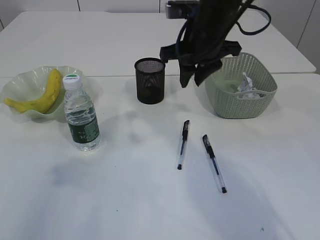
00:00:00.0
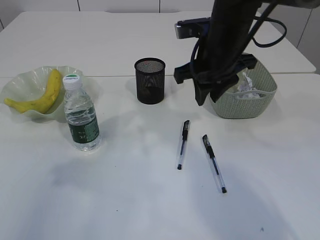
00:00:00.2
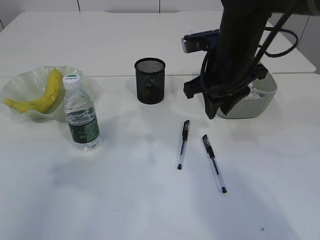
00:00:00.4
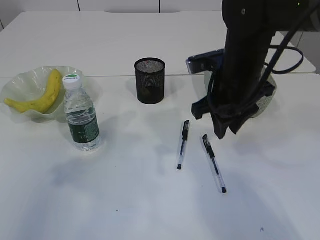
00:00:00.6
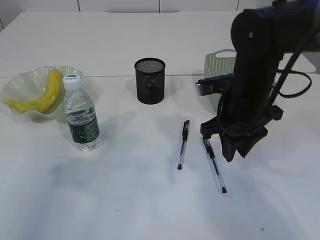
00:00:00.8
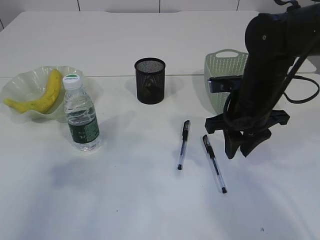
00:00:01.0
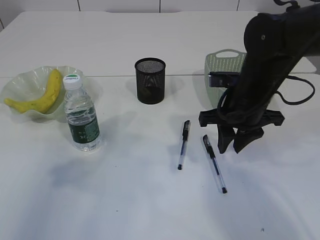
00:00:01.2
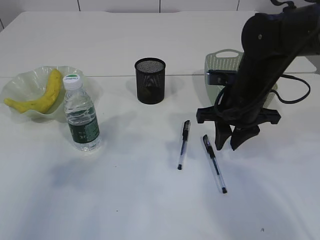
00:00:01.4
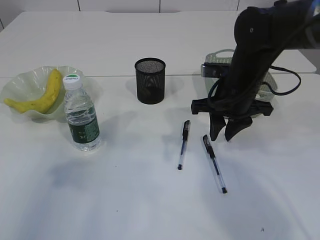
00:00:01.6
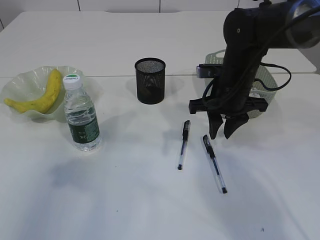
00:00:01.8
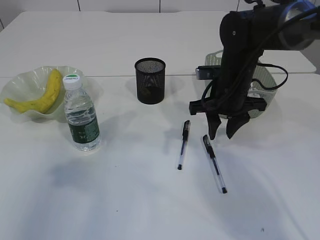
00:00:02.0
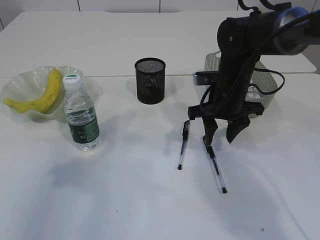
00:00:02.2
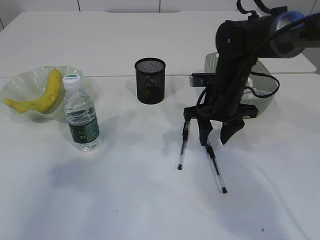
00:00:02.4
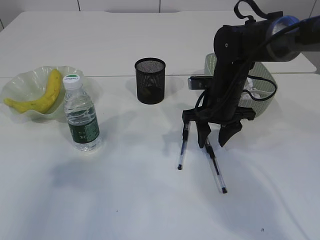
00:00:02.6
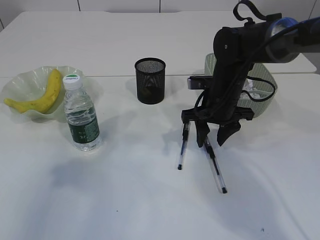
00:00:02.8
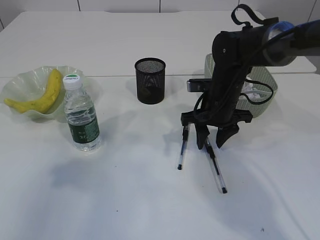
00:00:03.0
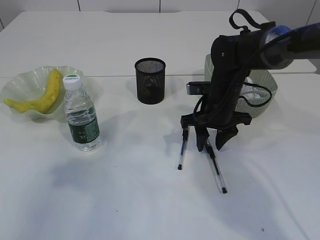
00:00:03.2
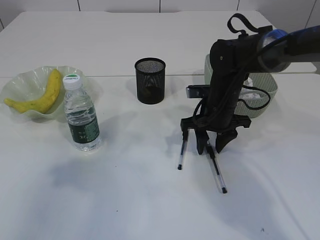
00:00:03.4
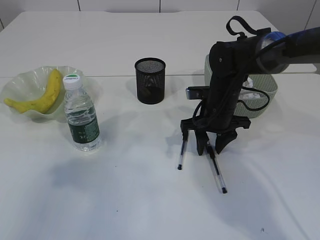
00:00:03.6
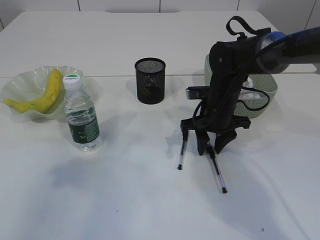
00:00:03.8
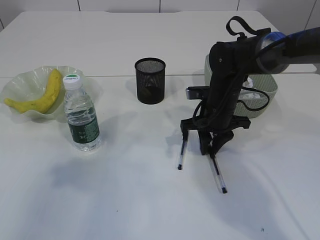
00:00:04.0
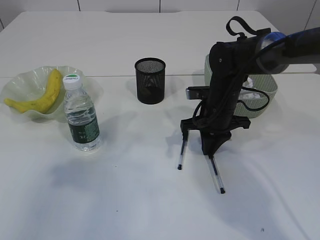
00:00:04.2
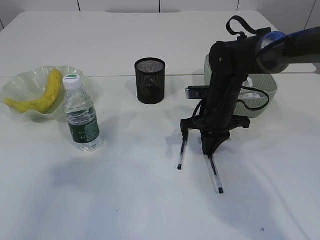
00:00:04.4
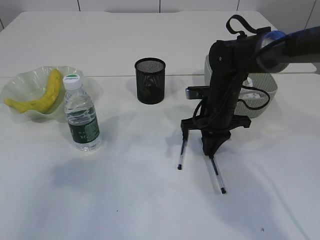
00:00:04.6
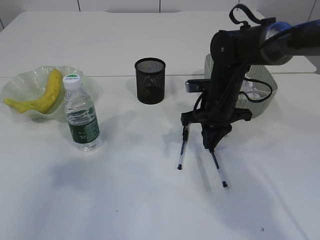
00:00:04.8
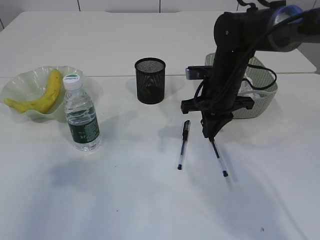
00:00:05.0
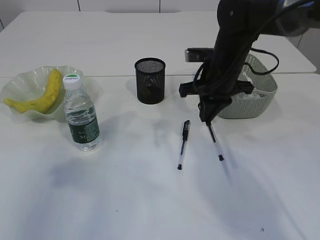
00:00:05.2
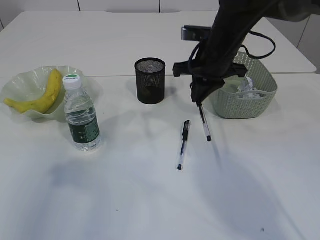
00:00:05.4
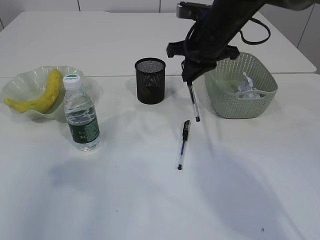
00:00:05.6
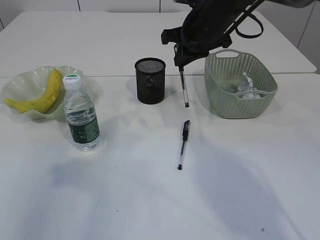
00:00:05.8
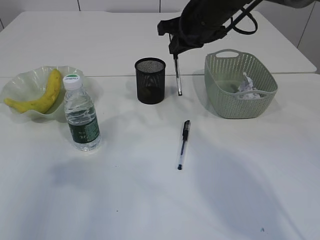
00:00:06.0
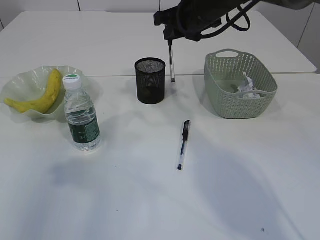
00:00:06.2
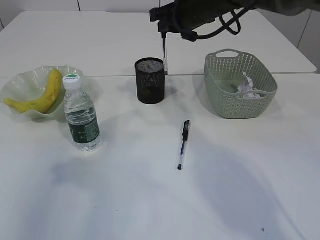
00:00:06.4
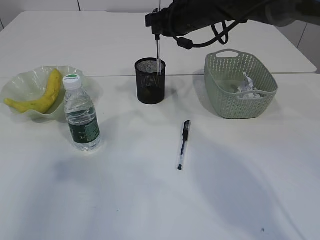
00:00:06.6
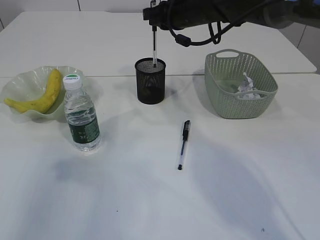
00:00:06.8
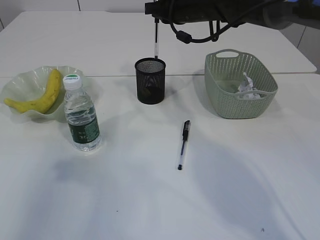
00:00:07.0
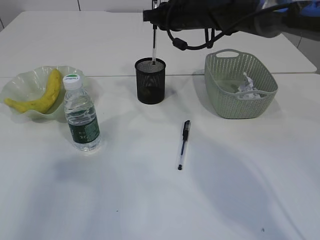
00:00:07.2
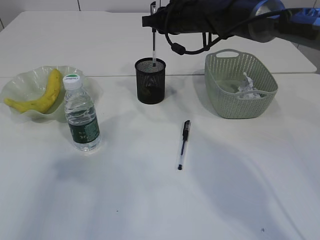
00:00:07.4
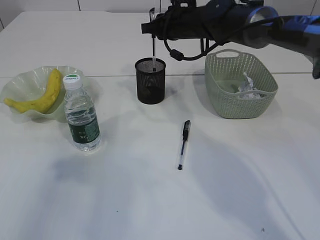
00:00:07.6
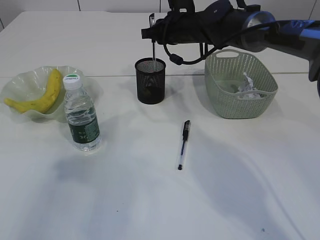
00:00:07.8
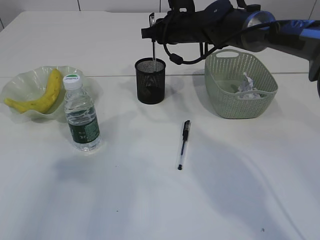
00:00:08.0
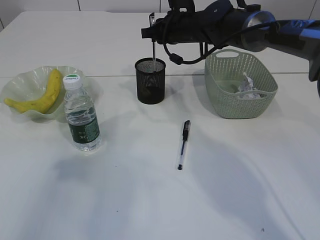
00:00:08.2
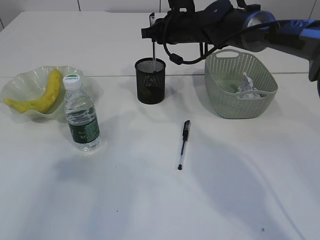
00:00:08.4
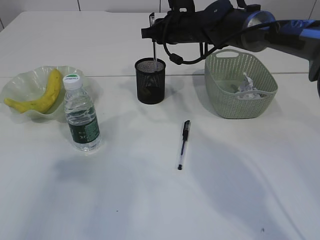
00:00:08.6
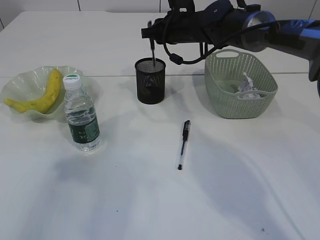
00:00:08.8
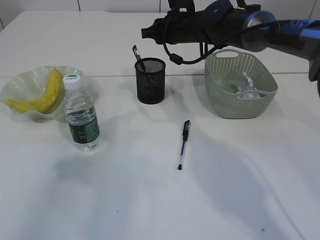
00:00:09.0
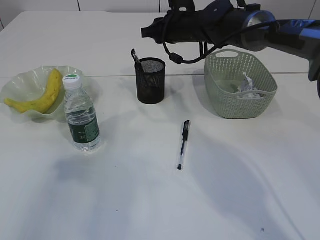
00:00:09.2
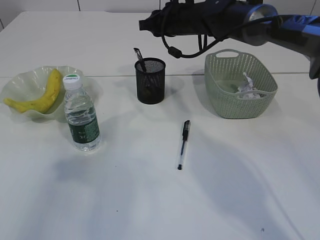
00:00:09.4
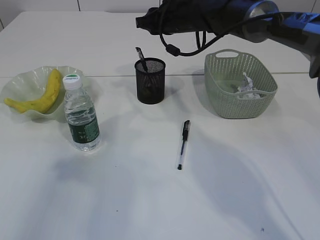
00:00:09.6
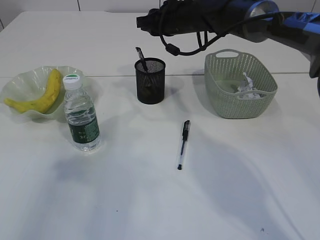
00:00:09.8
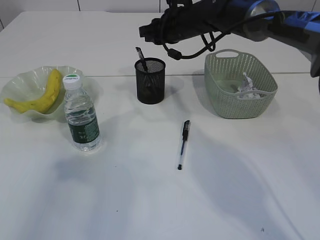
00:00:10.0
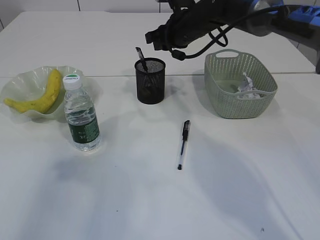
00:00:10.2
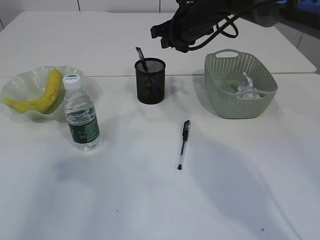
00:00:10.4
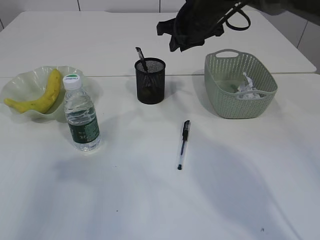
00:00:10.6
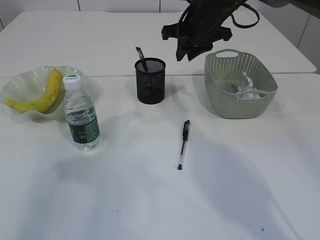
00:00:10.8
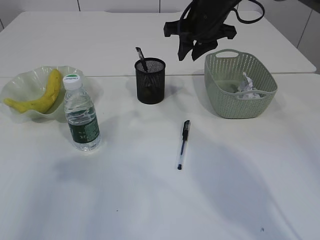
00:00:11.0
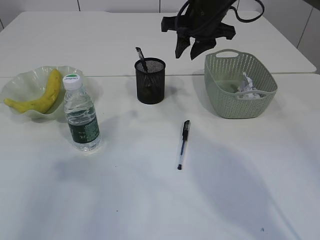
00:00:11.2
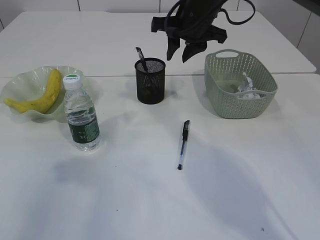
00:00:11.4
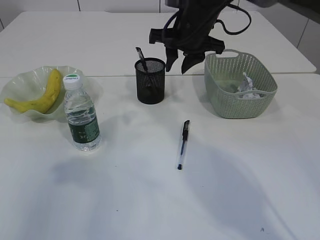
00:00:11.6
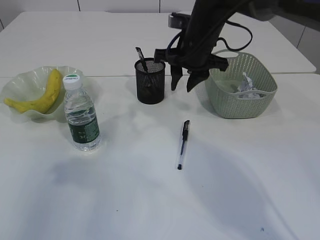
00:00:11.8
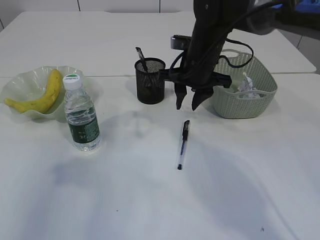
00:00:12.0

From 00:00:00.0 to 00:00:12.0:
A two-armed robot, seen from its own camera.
Step, from 00:00:00.0 to 00:00:04.8: Pick up the pen with right arm.
Step, from 00:00:05.0 to 00:00:09.0: Place the pen into the pen holder.
From 00:00:00.0 to 00:00:01.6: The right gripper is displaced downward by roughly 10 cm.
From 00:00:01.6 to 00:00:03.0: The right gripper moves roughly 5 cm.
From 00:00:03.0 to 00:00:04.4: The right gripper closes up.
From 00:00:04.4 to 00:00:06.0: The right gripper shifts some 15 cm upward.
From 00:00:06.0 to 00:00:07.6: The right gripper goes roughly 5 cm forward.
From 00:00:07.6 to 00:00:09.0: Neither gripper changes place.
From 00:00:10.4 to 00:00:12.0: The right gripper heads backward, covering approximately 5 cm.

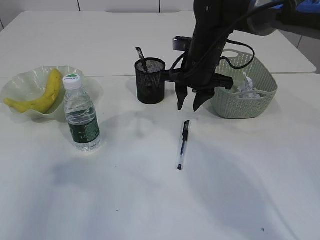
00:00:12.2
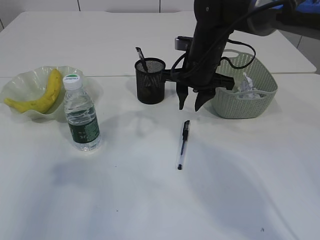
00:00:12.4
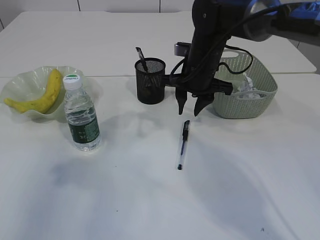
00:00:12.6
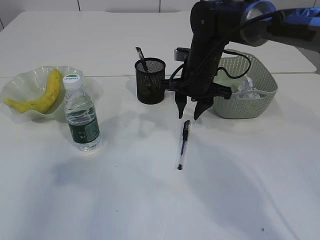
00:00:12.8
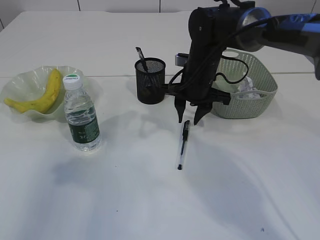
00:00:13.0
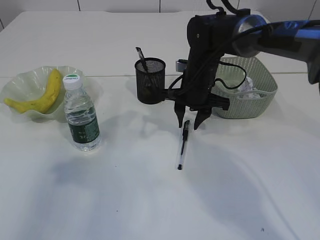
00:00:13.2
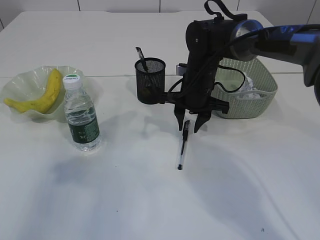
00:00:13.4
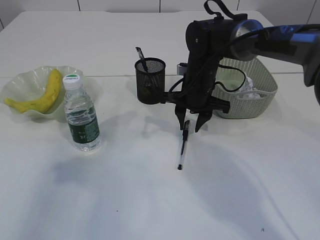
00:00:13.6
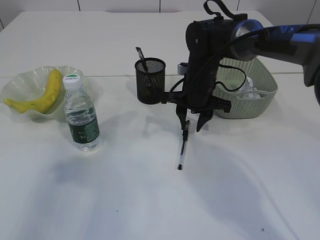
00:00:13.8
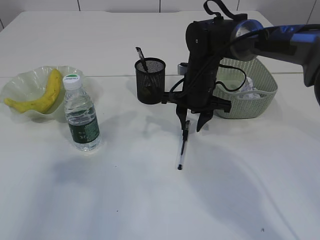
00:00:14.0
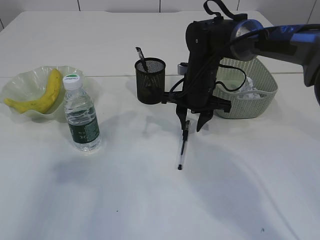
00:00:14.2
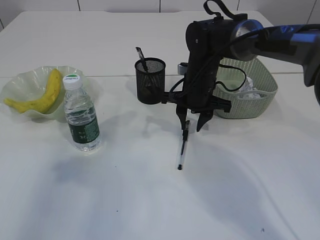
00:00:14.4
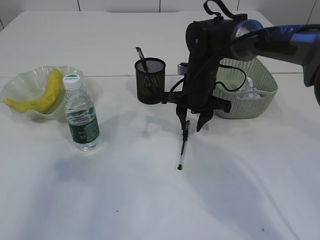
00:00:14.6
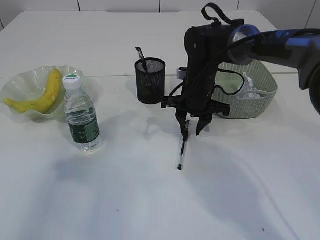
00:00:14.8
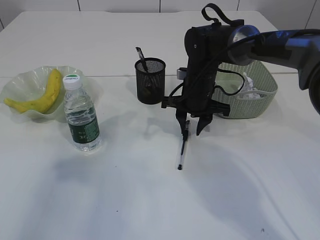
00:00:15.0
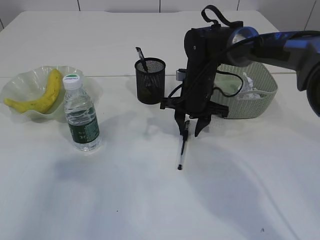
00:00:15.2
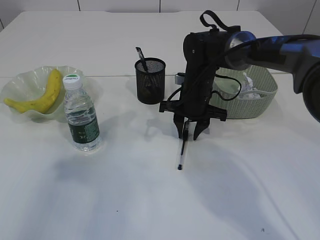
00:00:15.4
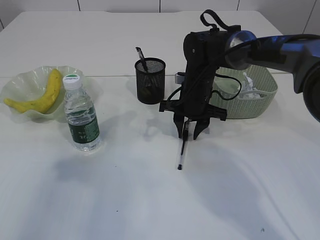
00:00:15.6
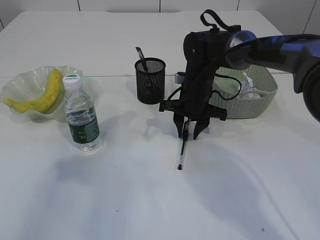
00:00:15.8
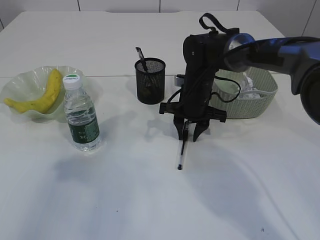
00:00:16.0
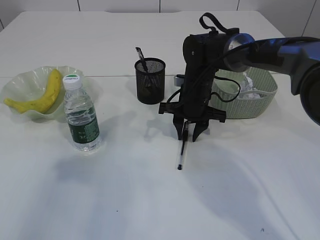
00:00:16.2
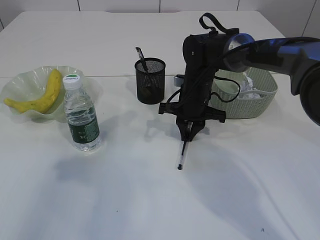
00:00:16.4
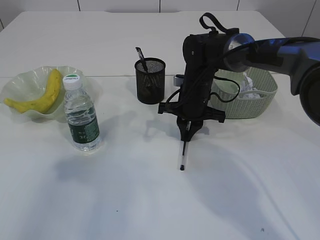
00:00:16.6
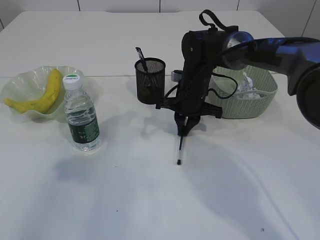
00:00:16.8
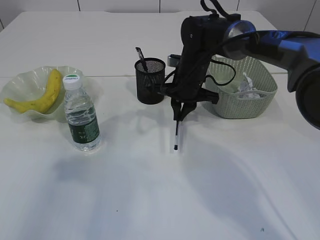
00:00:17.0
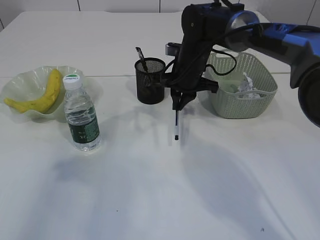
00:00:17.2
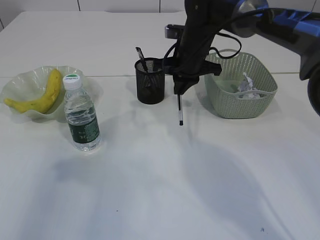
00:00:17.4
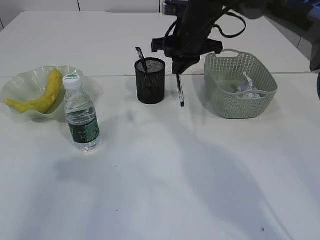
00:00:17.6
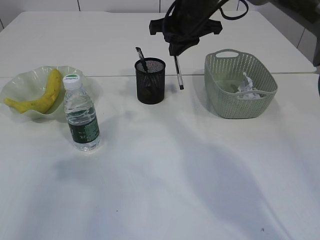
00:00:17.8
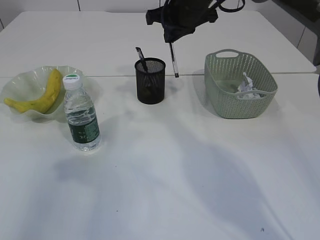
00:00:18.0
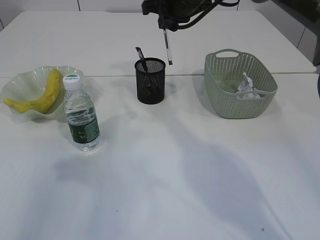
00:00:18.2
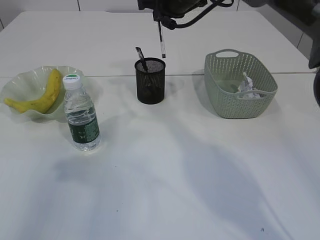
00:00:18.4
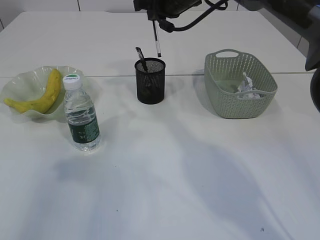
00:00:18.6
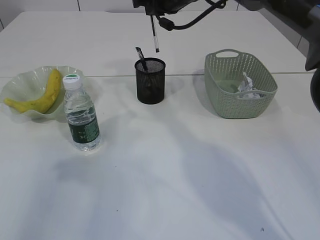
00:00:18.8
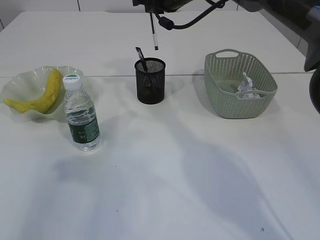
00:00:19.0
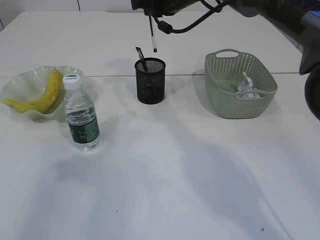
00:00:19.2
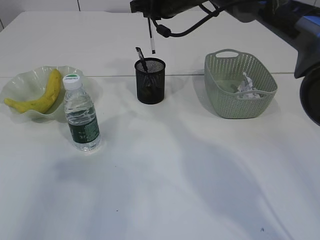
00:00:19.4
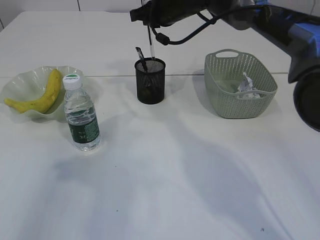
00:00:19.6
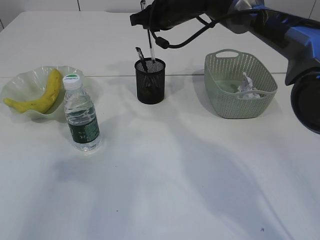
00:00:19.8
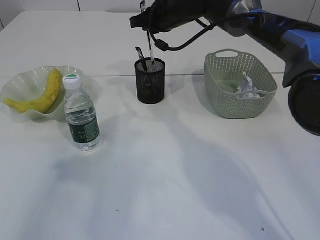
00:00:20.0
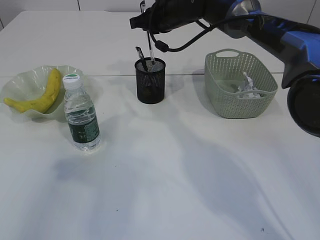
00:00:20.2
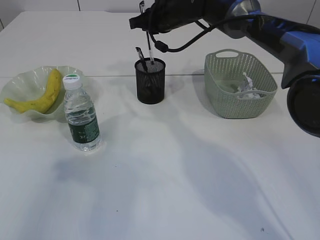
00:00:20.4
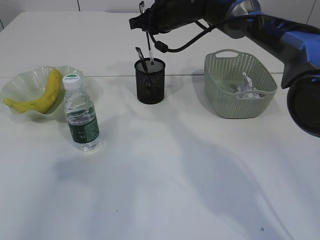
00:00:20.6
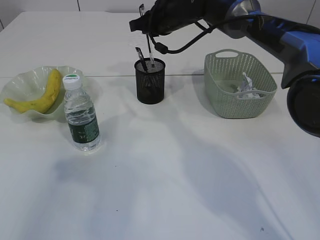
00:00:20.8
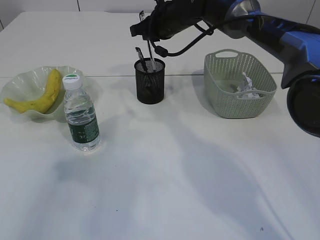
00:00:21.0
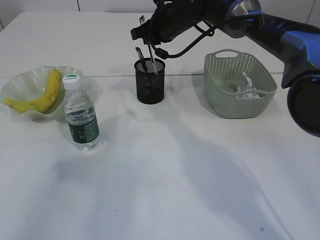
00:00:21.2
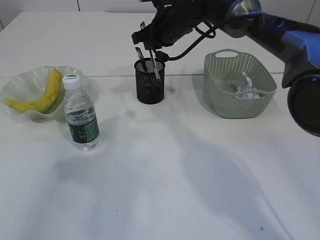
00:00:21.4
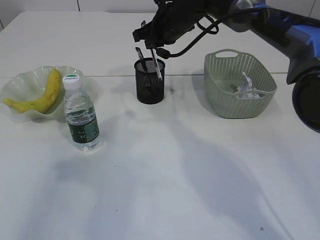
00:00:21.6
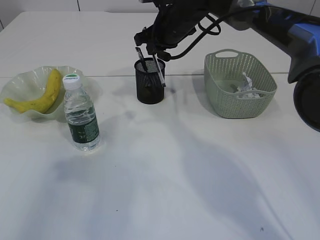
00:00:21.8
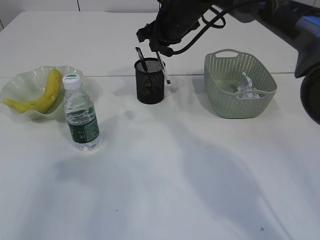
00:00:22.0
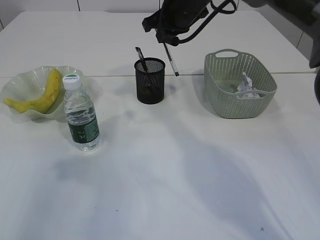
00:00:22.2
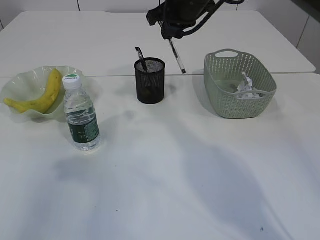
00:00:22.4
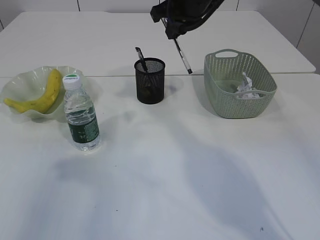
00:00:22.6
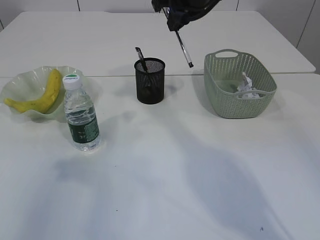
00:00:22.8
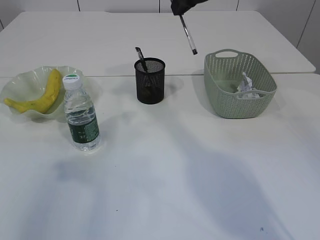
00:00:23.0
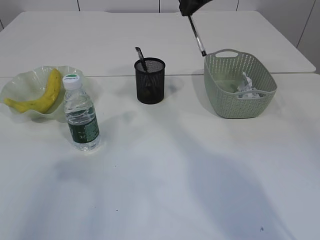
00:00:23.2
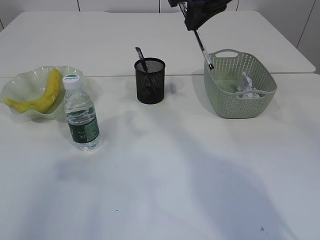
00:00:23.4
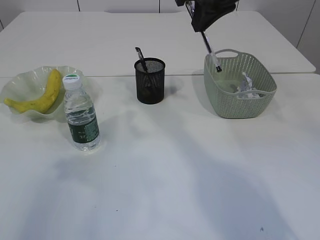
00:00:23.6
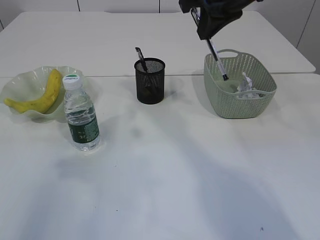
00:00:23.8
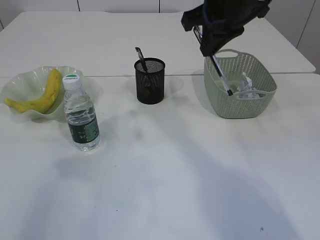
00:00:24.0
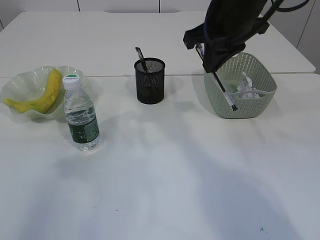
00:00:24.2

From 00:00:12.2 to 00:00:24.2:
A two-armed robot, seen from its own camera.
Step, from 00:00:12.2 to 00:00:16.8: Pick up the pen with right arm.
From 00:00:12.2 to 00:00:13.8: The right gripper shifts about 5 cm downward.
From 00:00:13.8 to 00:00:15.2: The grippers move only a little.
From 00:00:15.2 to 00:00:16.6: The right gripper closes up.
From 00:00:16.6 to 00:00:18.2: The right gripper travels upward by approximately 20 cm.
From 00:00:18.2 to 00:00:19.8: The right gripper ends up approximately 5 cm from where it was.
From 00:00:19.8 to 00:00:21.2: The grippers make only small movements.
From 00:00:21.2 to 00:00:22.6: The right gripper heads upward and backward, covering some 10 cm.
From 00:00:22.6 to 00:00:24.2: The right gripper heads backward, covering about 10 cm.
